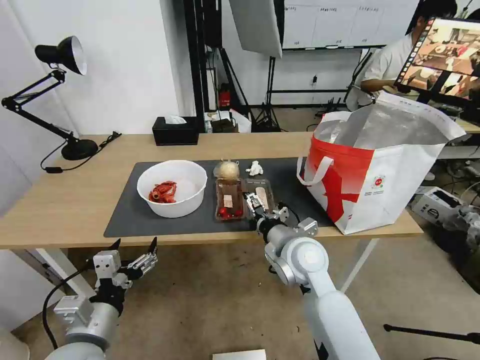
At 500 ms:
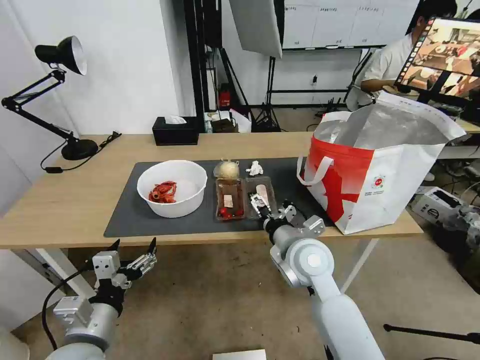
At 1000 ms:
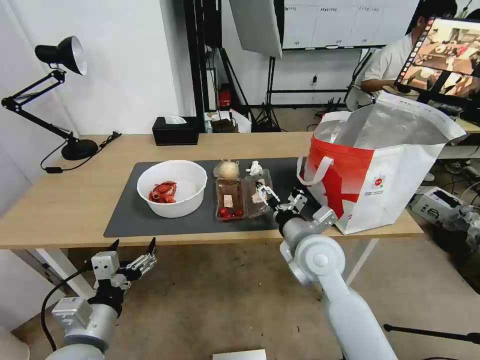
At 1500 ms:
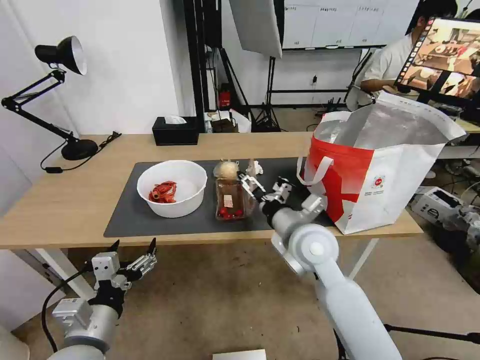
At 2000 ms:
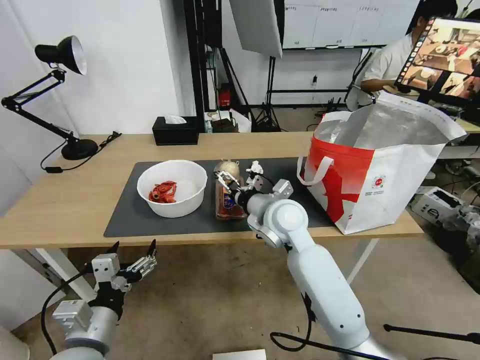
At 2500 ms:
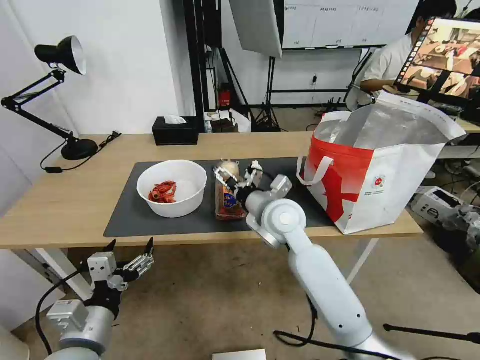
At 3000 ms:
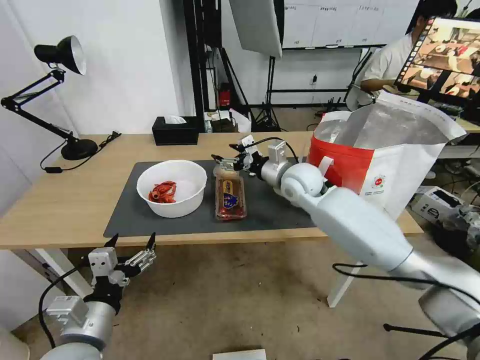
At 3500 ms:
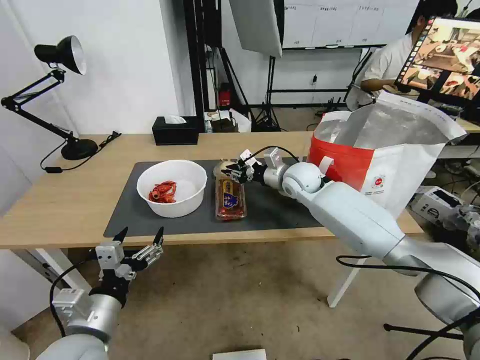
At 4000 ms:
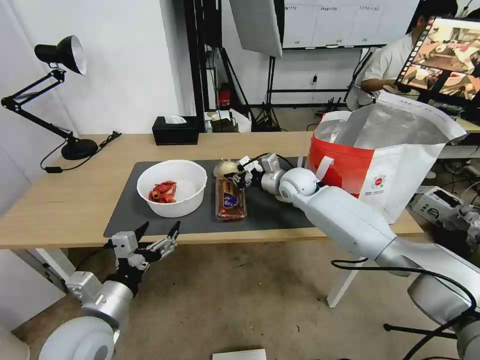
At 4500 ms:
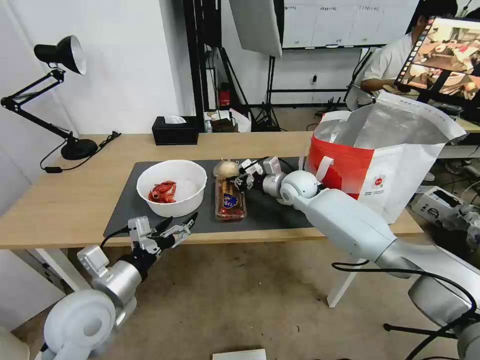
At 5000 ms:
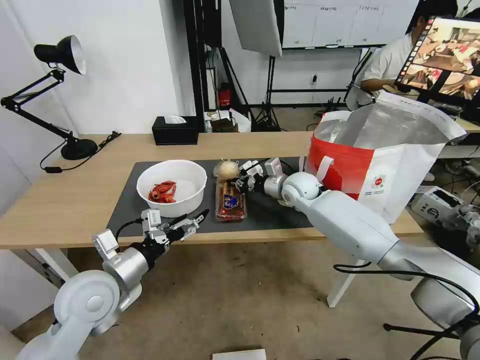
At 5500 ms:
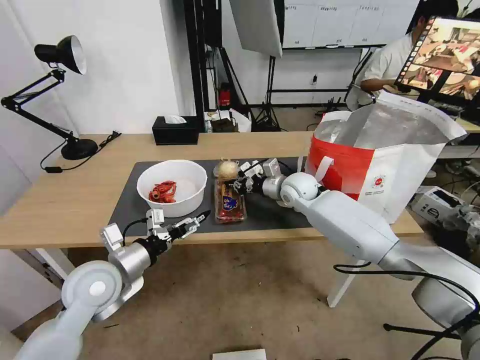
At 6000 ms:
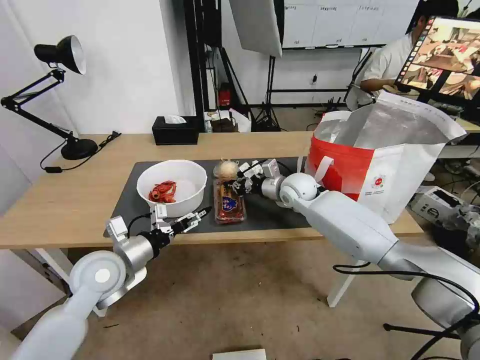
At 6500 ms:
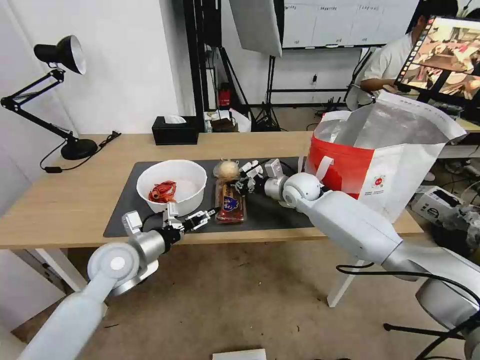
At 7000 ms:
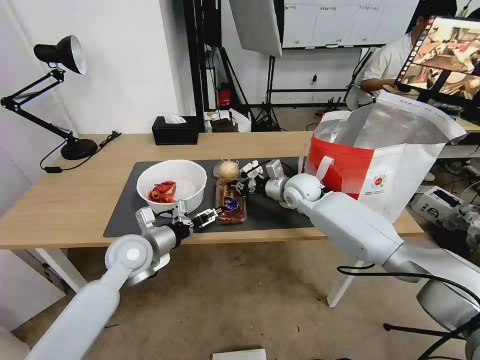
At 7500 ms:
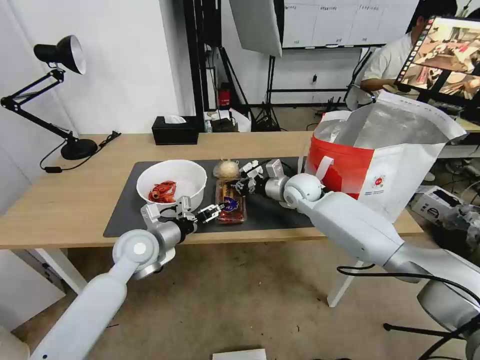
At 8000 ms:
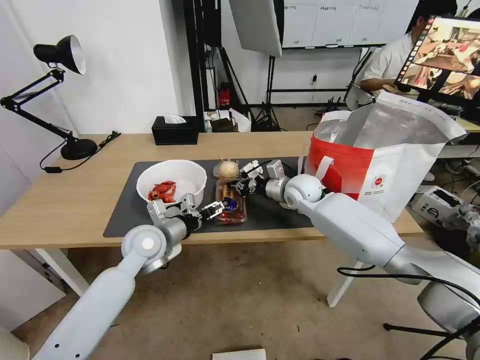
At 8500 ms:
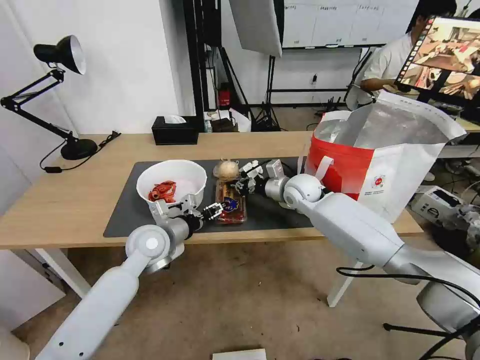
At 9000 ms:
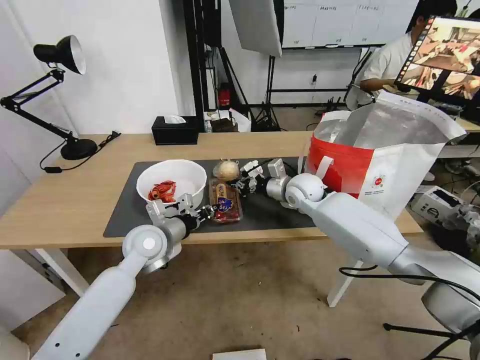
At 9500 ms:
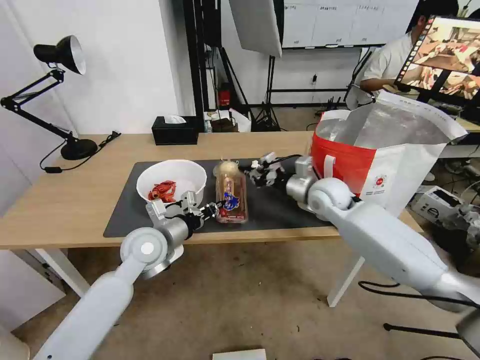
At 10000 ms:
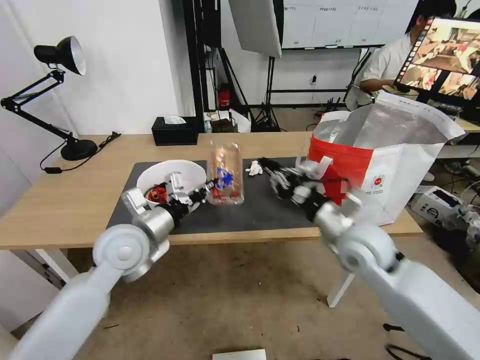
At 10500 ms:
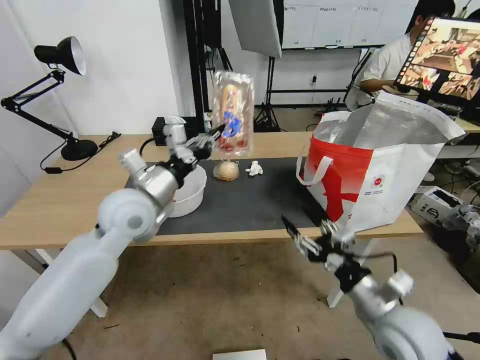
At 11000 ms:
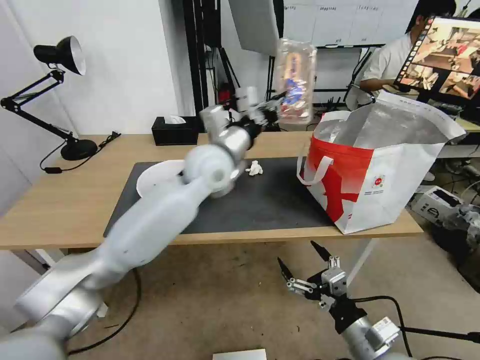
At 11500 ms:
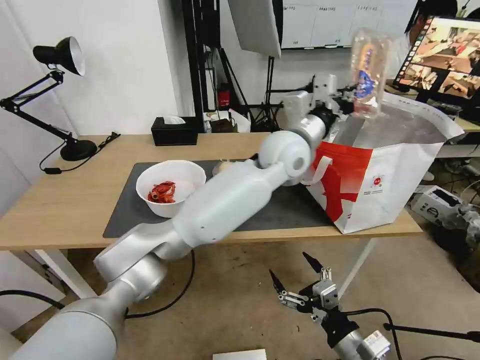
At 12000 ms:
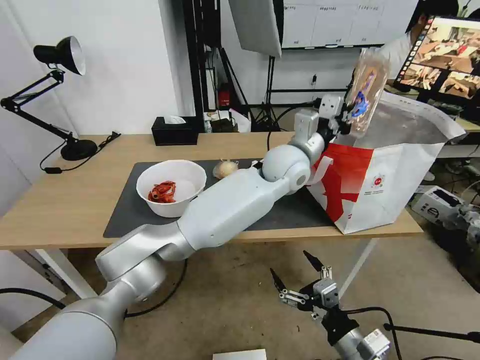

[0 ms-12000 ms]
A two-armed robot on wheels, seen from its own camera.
Task of the whole recording: Pick up the trash from the table and place it into the takeout bag.
0 ms to 2000 ms: The right gripper is displaced forward by some 5 cm.
2000 ms to 4000 ms: The right gripper moves forward and to the right, about 15 cm, and closes its fingers.
4000 ms to 6000 ms: The left gripper travels forward by some 10 cm.
6000 ms to 8000 ms: The left gripper moves forward and to the right, about 10 cm.
8000 ms to 10000 ms: The right gripper goes approximately 20 cm backward. The left gripper is displaced upward and backward by about 10 cm, and closes.
10000 ms to 12000 ms: The left gripper shifts roughly 35 cm to the right and forward, while the right gripper moves backward and downward, some 25 cm, and opens its fingers.

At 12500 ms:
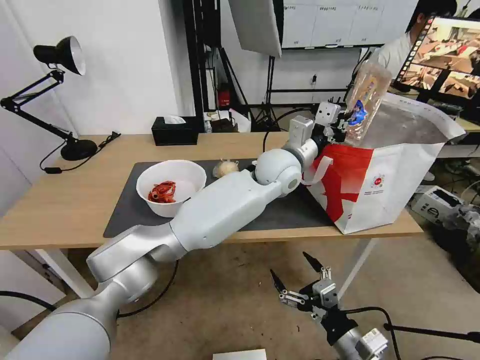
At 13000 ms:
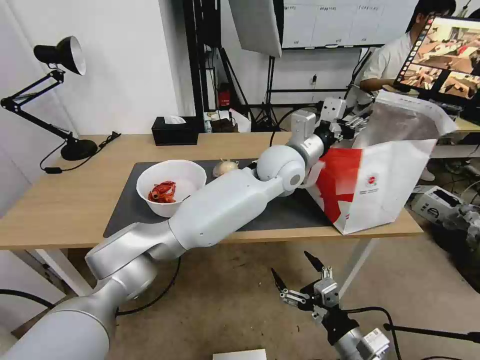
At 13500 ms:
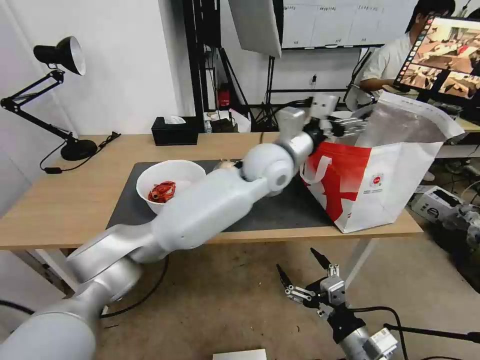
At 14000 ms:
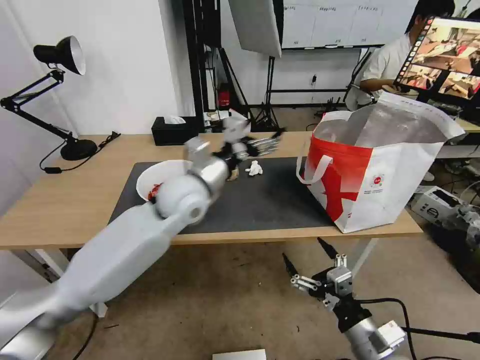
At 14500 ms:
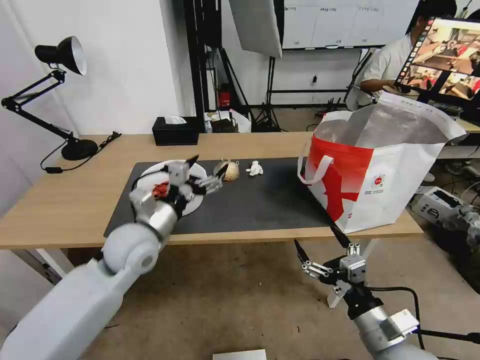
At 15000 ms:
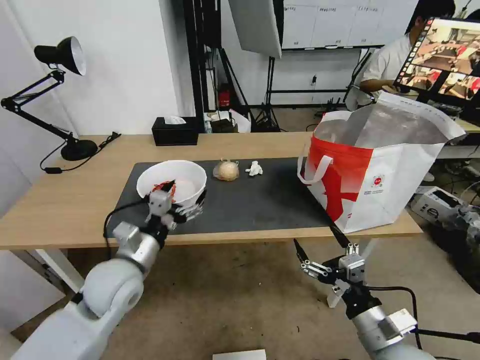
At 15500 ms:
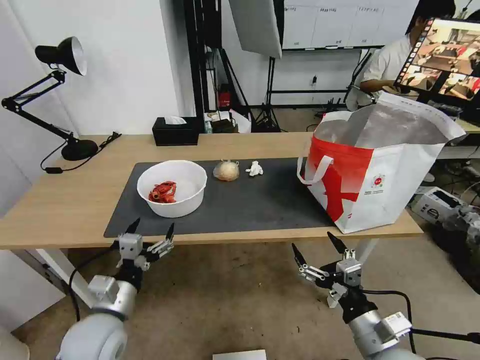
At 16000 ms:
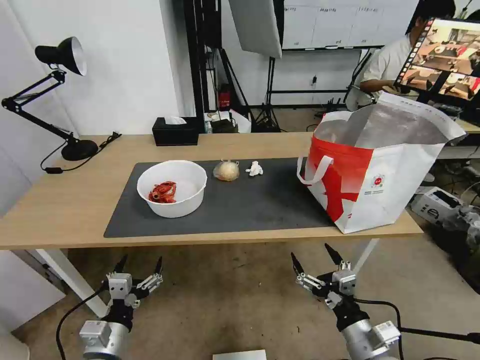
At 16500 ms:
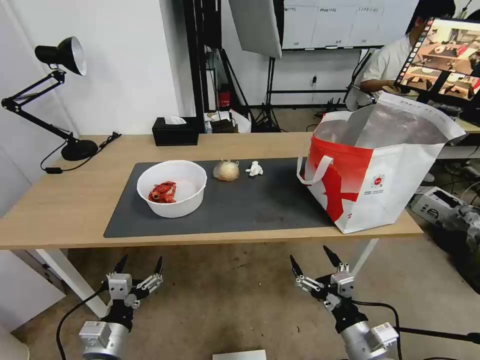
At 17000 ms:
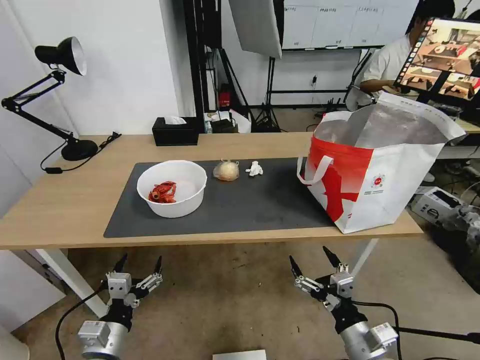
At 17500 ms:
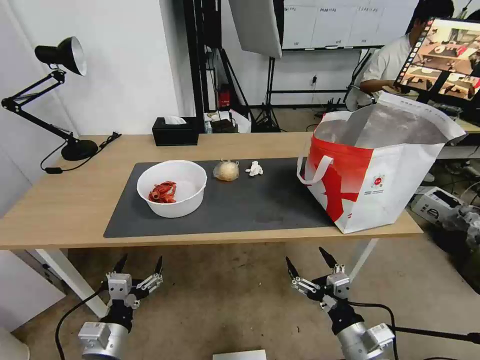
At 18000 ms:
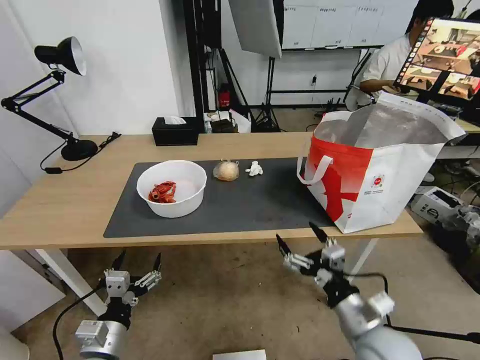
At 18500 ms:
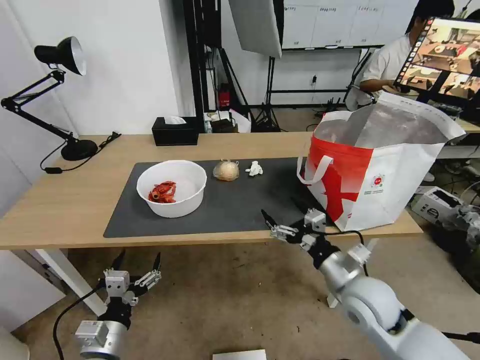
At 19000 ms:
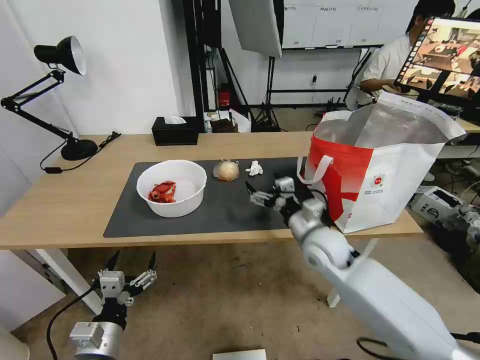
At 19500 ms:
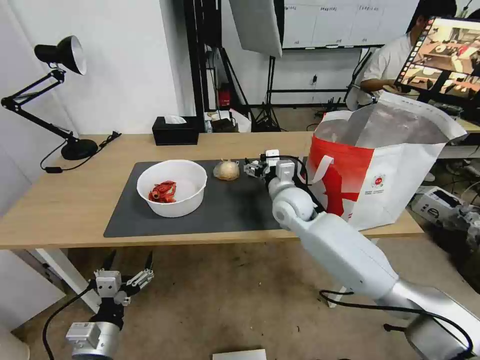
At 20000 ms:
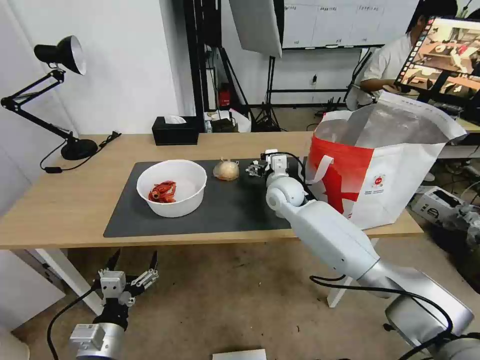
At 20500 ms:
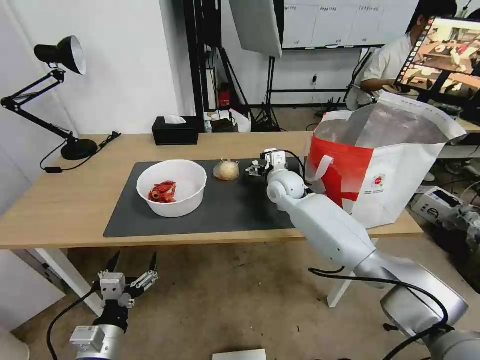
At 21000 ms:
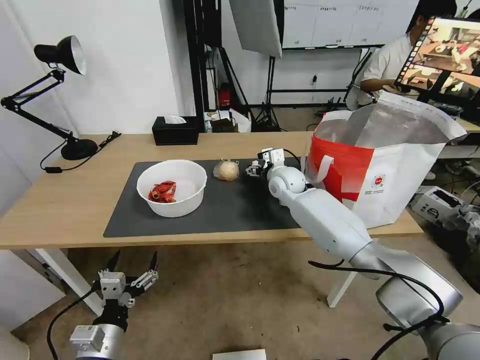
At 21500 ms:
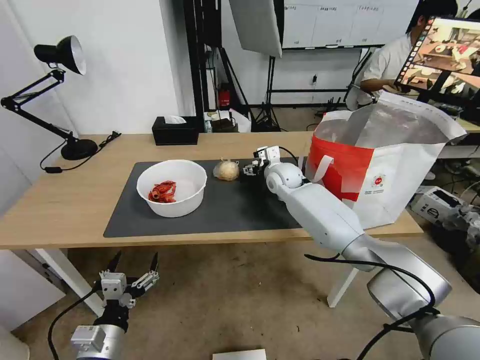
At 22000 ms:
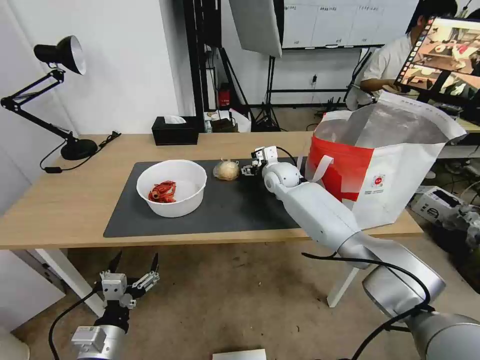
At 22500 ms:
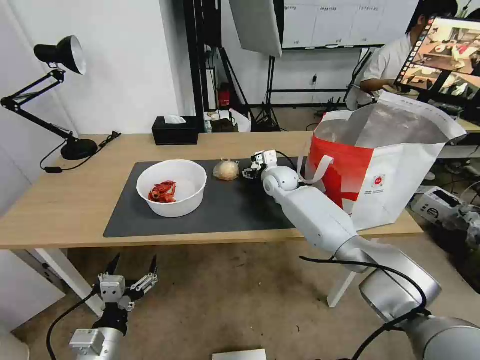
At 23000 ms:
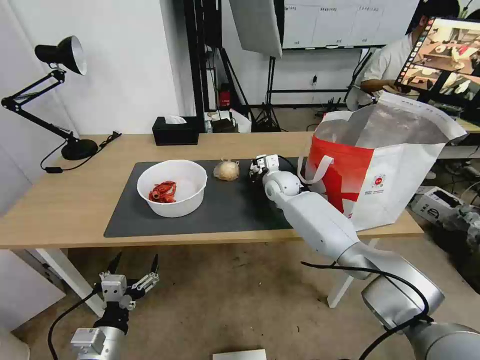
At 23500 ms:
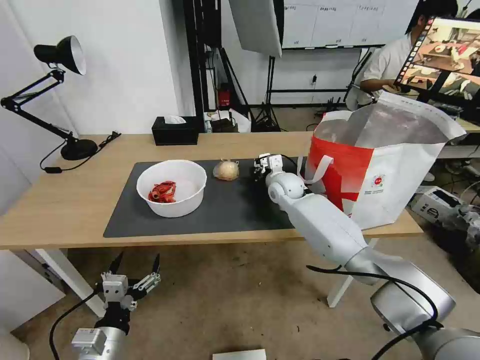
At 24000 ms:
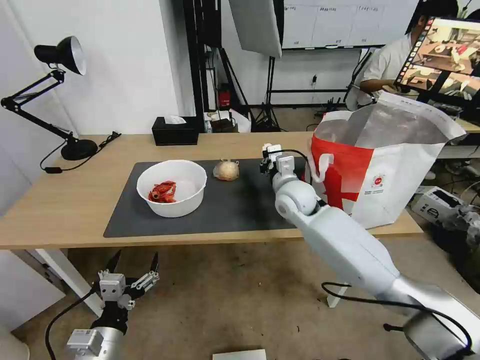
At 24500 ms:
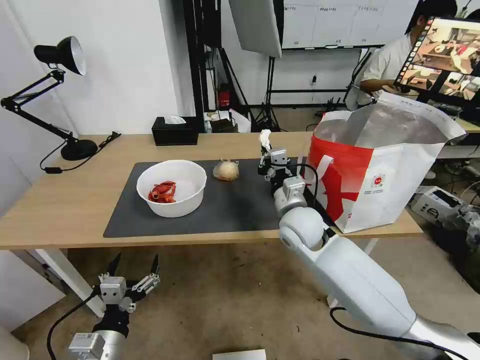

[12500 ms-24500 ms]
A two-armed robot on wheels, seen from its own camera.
Task of the whole recording: Pick up the trash from the table and place it into the takeout bag.
12500 ms to 14500 ms: The left gripper is displaced to the left and backward by about 35 cm, and opens its fingers.
14500 ms to 16500 ms: The left gripper moves backward and downward, some 25 cm. Meanwhile the right gripper moves downward, some 5 cm.
16500 ms to 18500 ms: The right gripper goes roughly 15 cm forward and upward.
18500 ms to 20500 ms: The right gripper is displaced forward and to the left by approximately 30 cm.
20500 ms to 22500 ms: The grippers stay close to where they were, moving slightly.
22500 ms to 24500 ms: The right gripper shifts approximately 20 cm backward, and closes.

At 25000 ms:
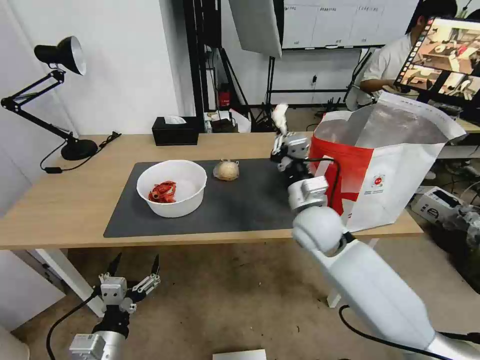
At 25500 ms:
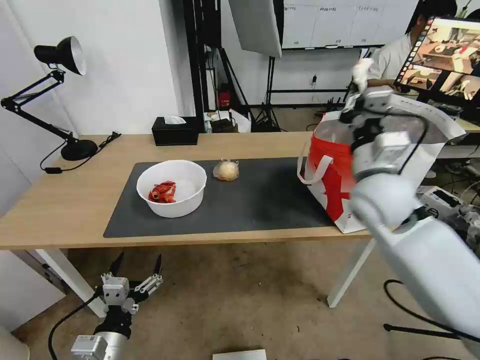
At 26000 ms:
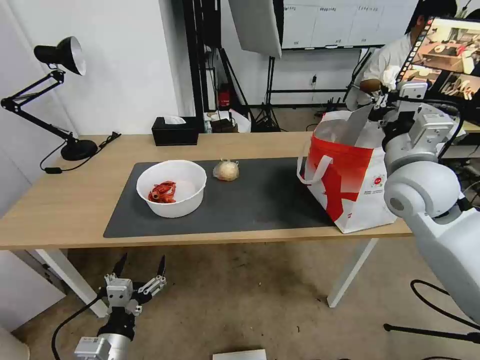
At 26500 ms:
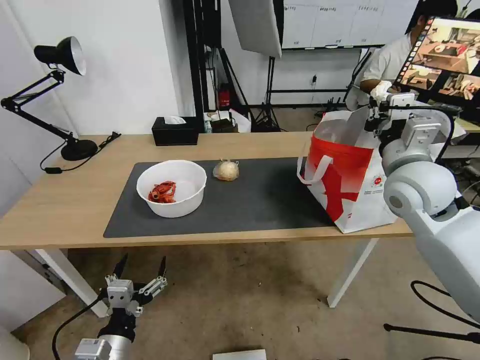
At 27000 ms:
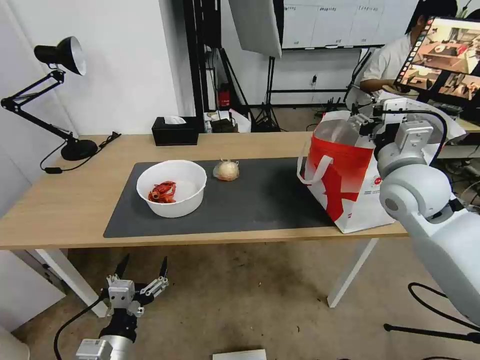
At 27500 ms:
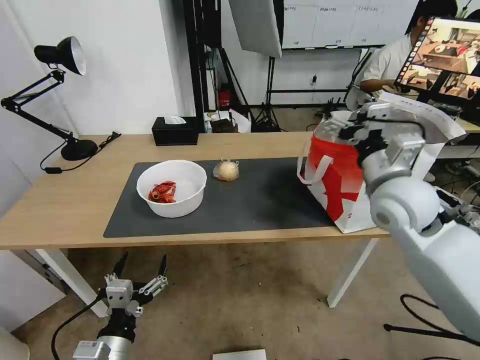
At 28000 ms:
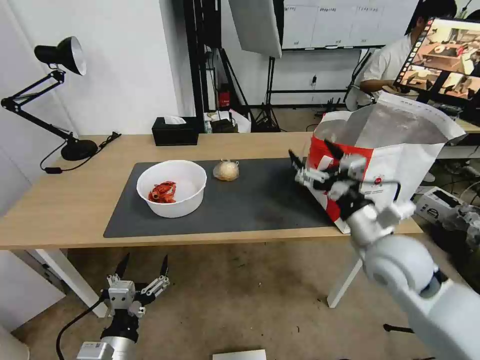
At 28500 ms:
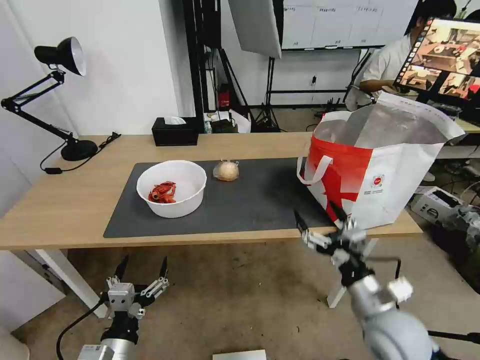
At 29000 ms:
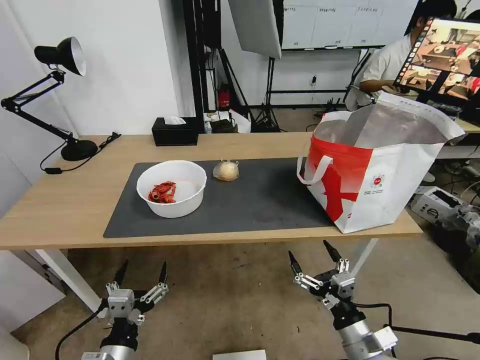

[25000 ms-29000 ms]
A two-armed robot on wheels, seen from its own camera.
Task of the whole recording: Pick up the trash from the table and place it into the takeout bag.
25000 ms to 27000 ms: The right gripper is displaced to the right and upward by approximately 15 cm, and opens up.
27000 ms to 29000 ms: The right gripper is displaced downward and backward by about 35 cm.
